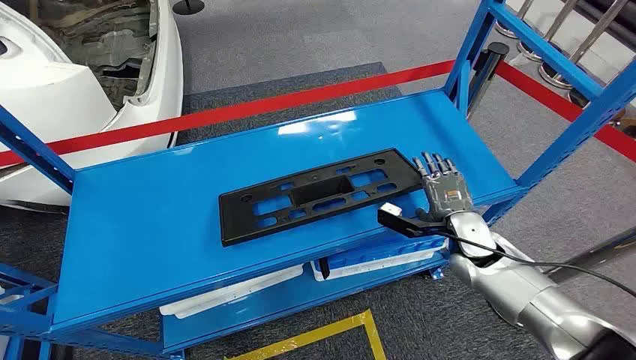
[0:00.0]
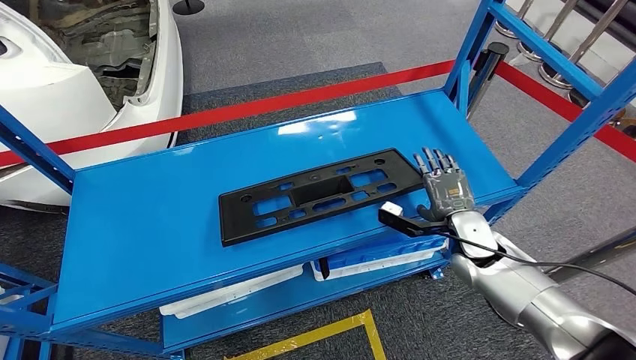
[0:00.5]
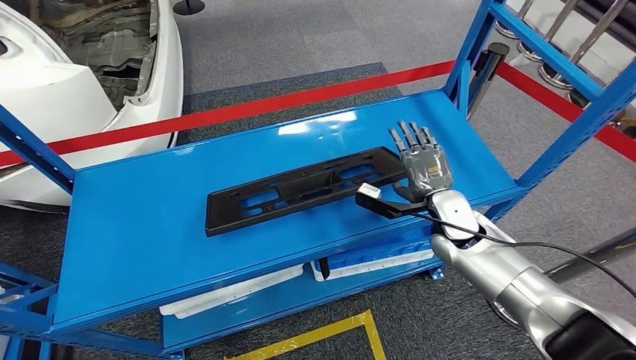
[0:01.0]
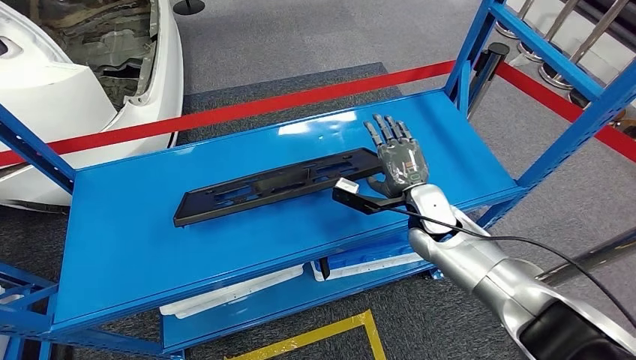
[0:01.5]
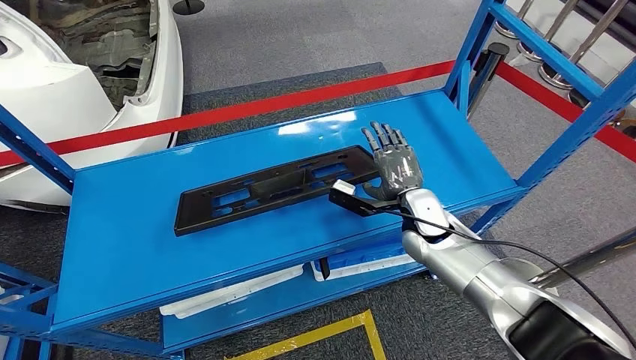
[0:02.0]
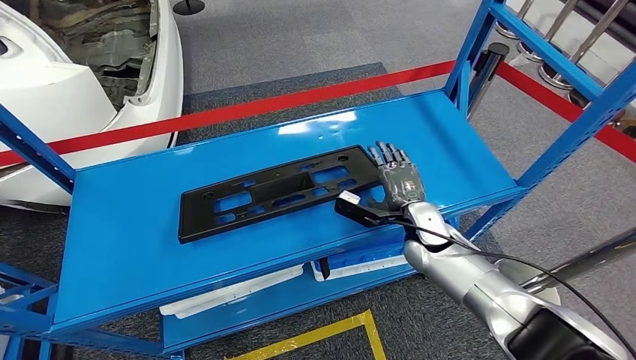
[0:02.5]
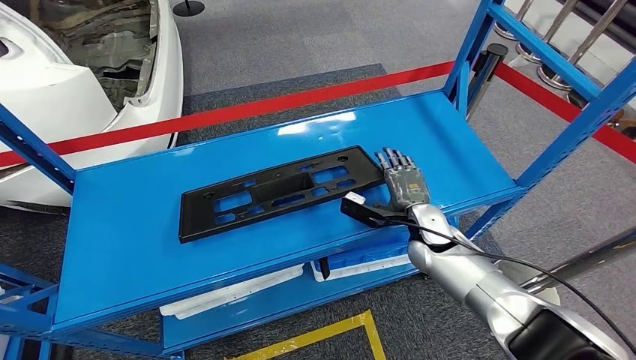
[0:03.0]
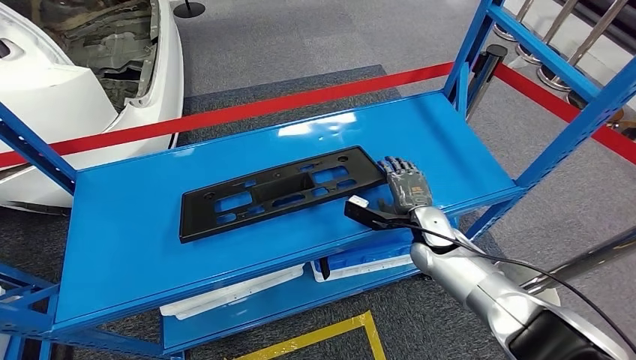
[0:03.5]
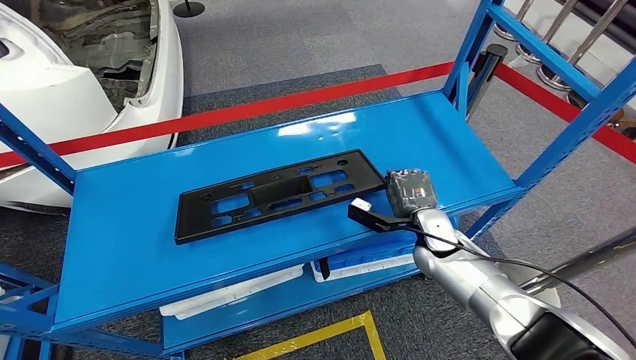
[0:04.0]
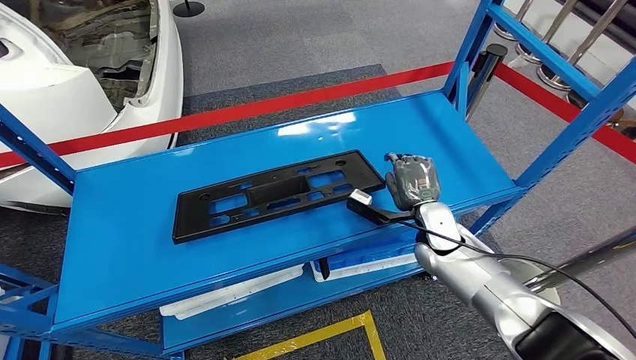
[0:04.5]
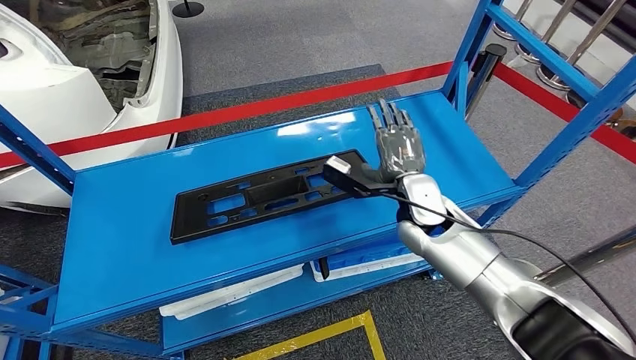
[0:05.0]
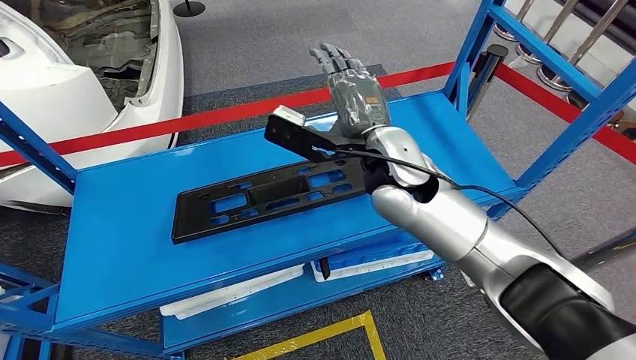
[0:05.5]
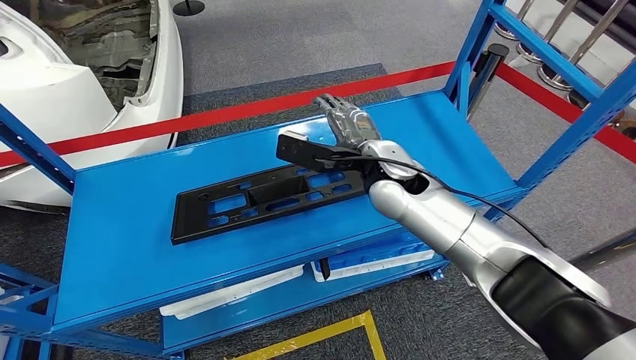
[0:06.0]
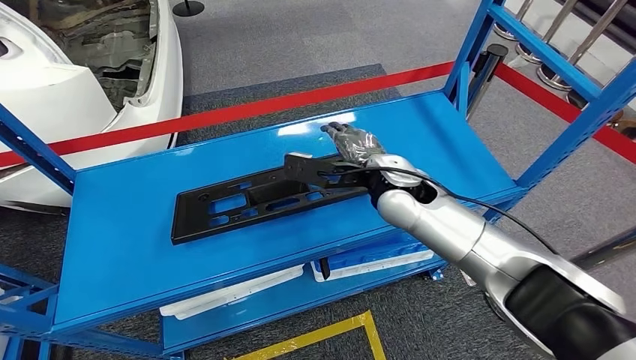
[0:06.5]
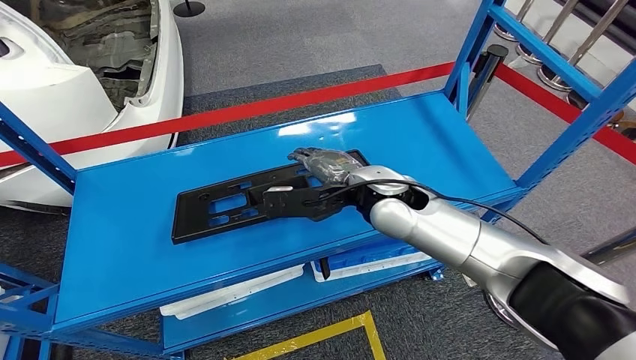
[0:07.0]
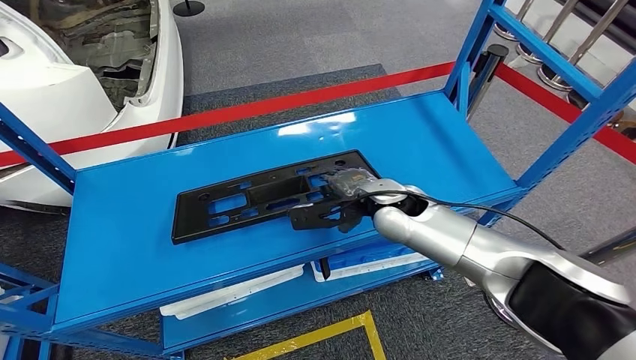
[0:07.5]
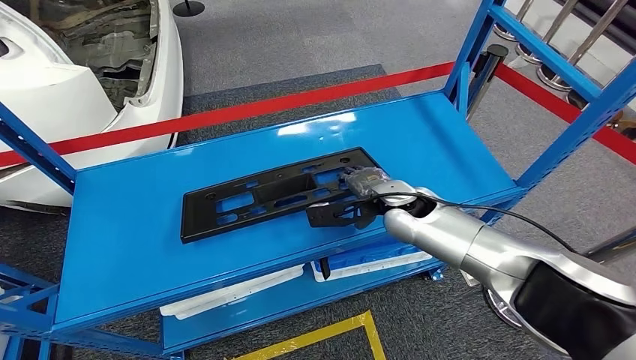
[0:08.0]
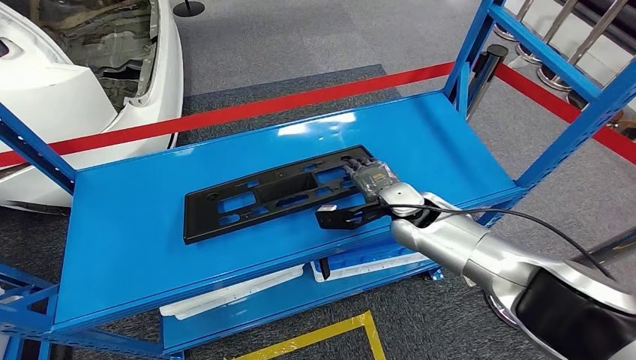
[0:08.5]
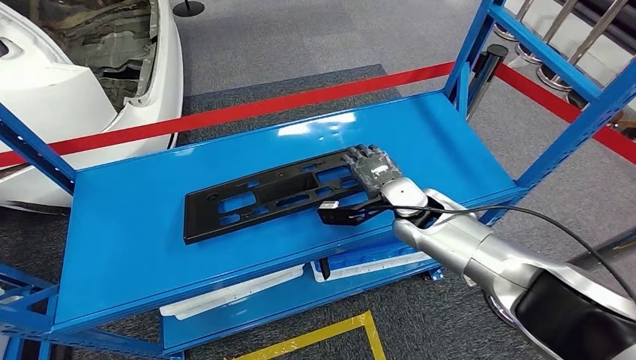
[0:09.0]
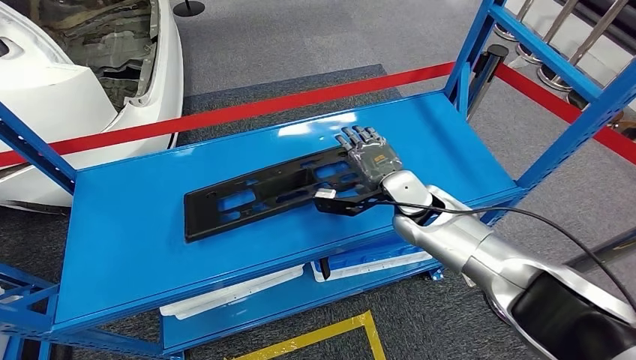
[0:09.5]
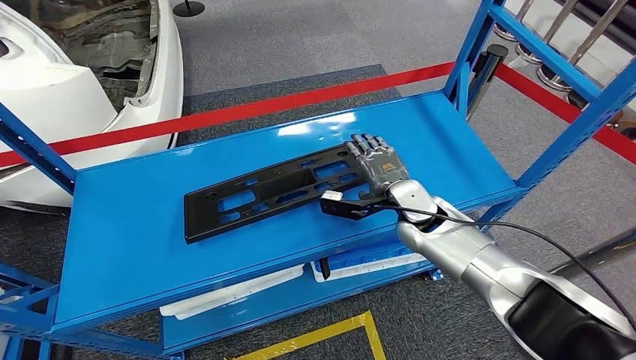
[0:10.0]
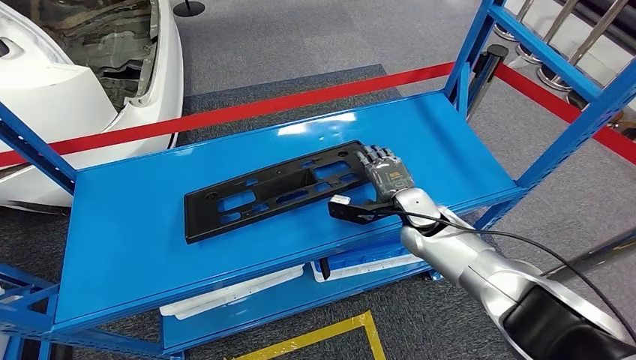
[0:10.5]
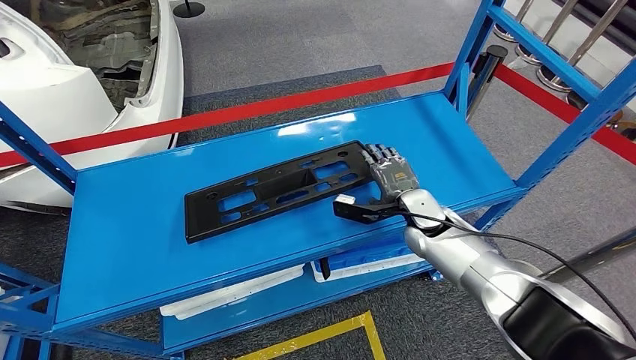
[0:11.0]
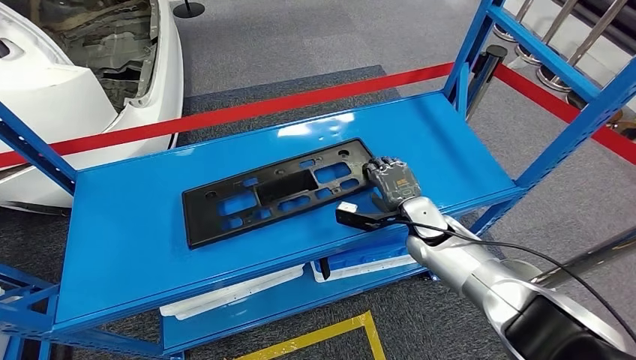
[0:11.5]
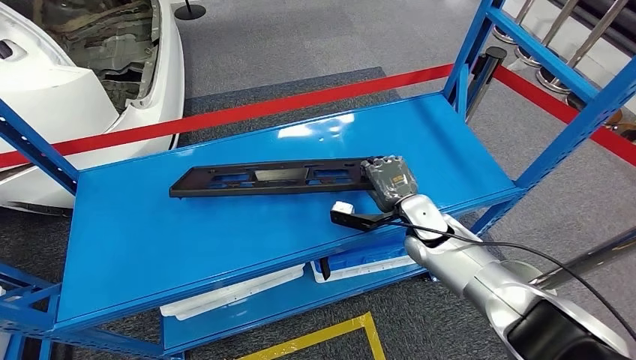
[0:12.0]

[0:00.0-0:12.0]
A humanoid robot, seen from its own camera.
0:02.0 to 0:04.0: The right hand heads downward, covering roughly 5 cm.
0:04.0 to 0:06.0: The right hand shifts about 20 cm upward and to the left.
0:06.0 to 0:08.0: The right hand moves downward, some 10 cm.
0:10.0 to 0:12.0: The hands stay close to where they were, moving slightly.

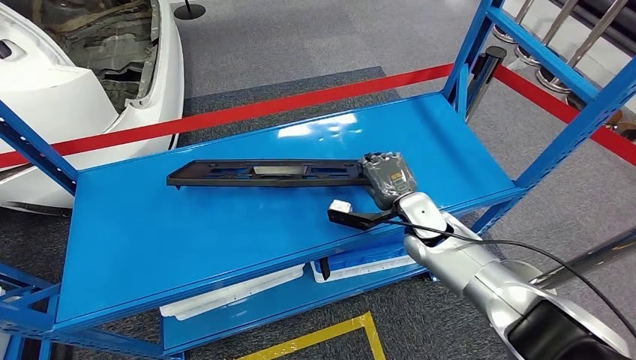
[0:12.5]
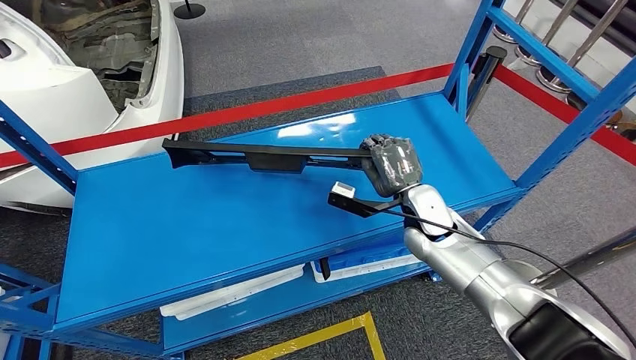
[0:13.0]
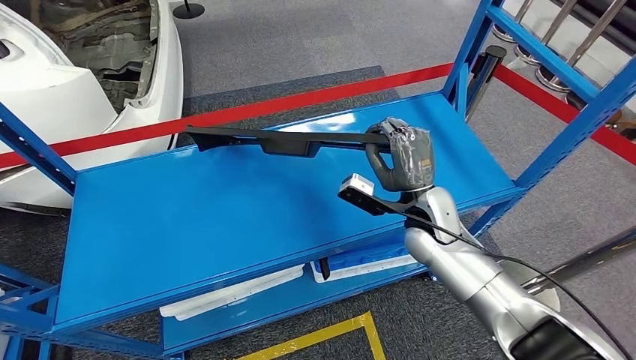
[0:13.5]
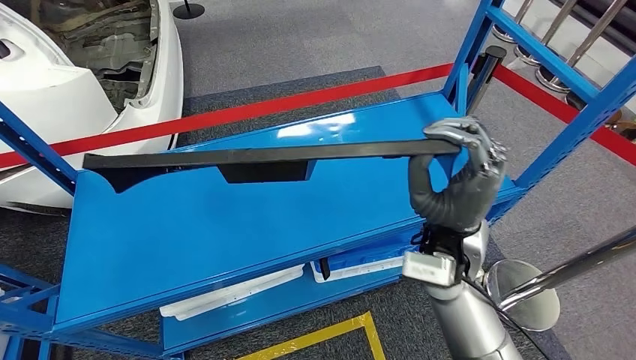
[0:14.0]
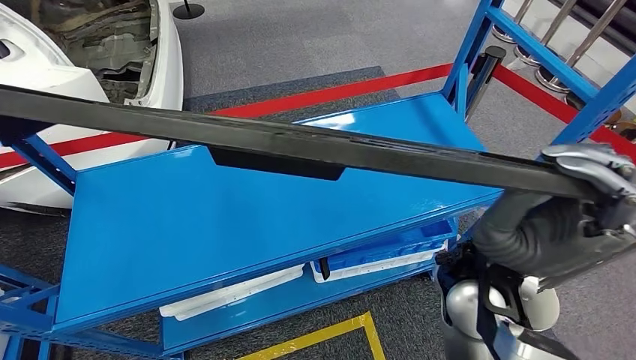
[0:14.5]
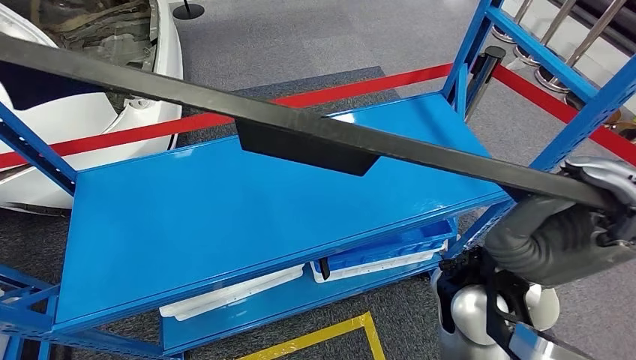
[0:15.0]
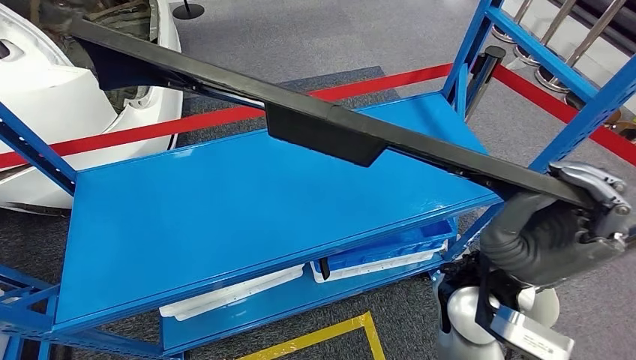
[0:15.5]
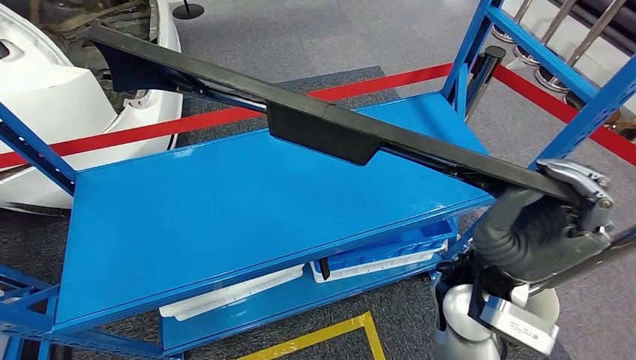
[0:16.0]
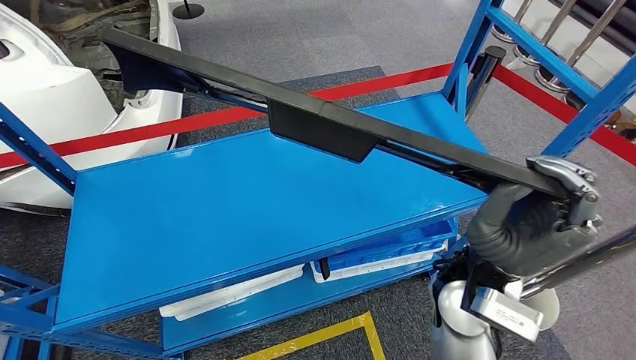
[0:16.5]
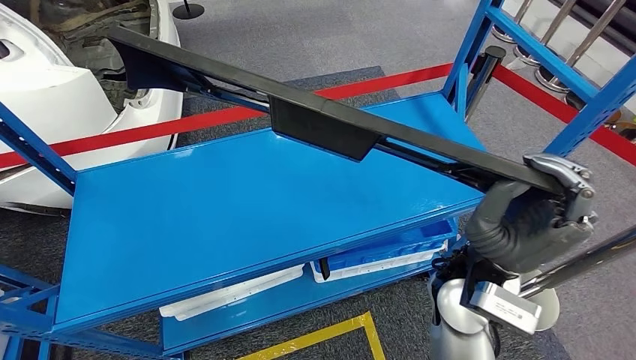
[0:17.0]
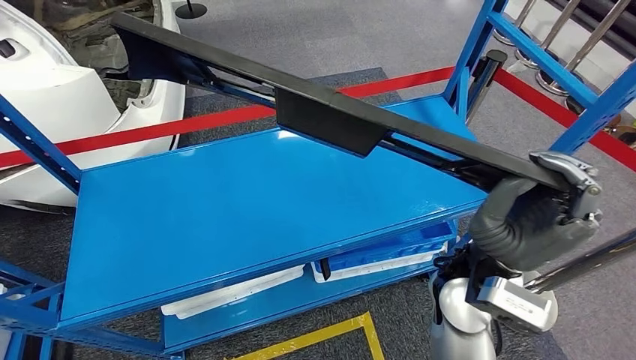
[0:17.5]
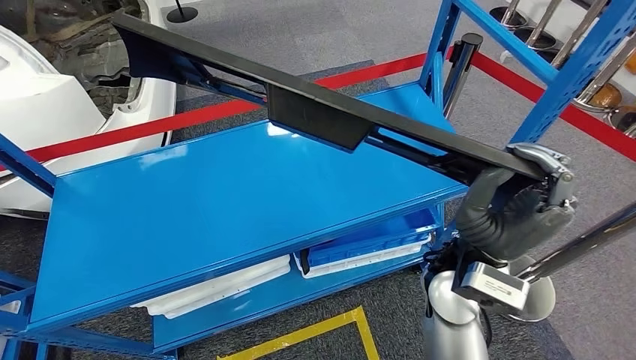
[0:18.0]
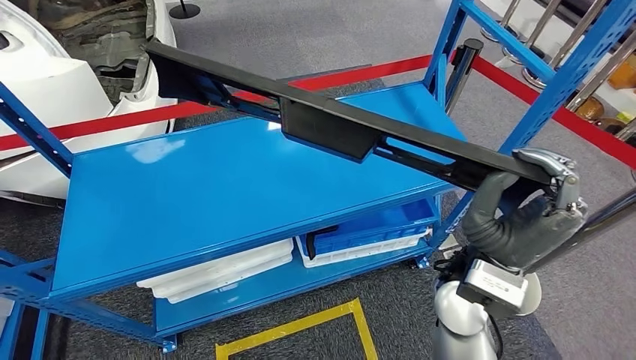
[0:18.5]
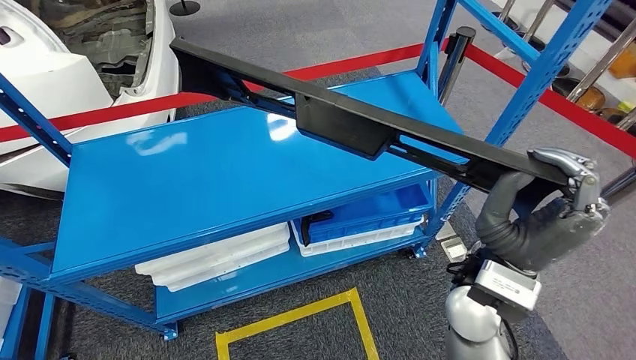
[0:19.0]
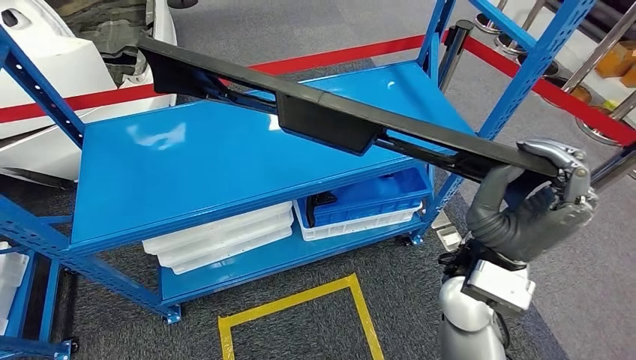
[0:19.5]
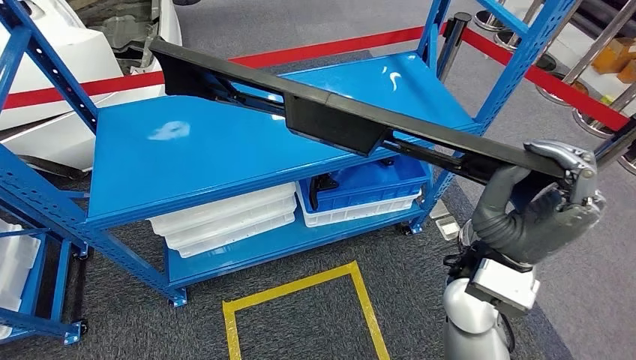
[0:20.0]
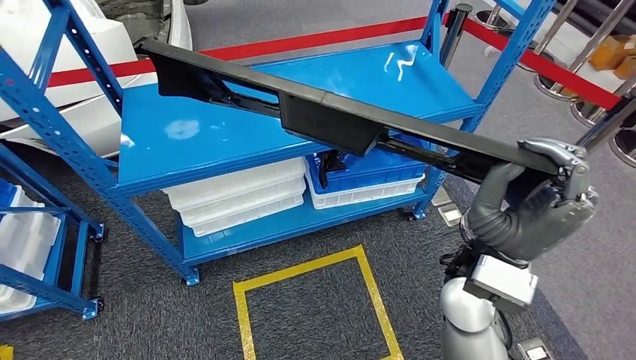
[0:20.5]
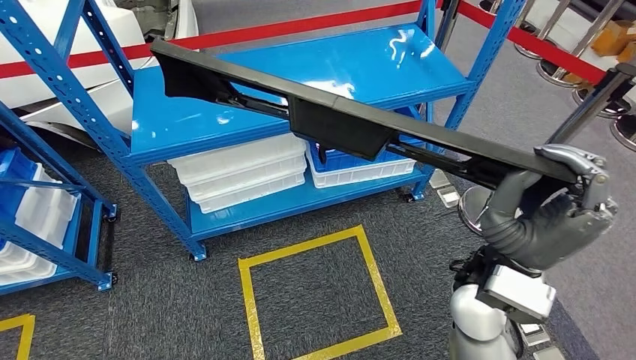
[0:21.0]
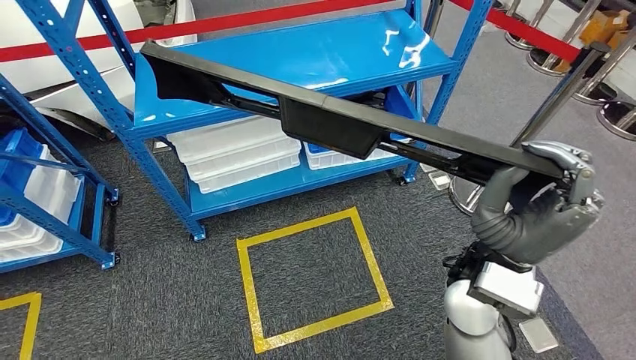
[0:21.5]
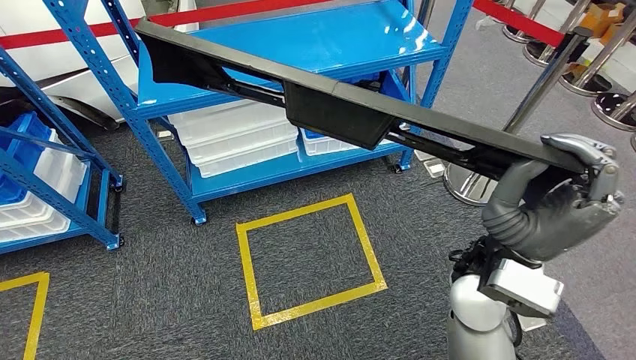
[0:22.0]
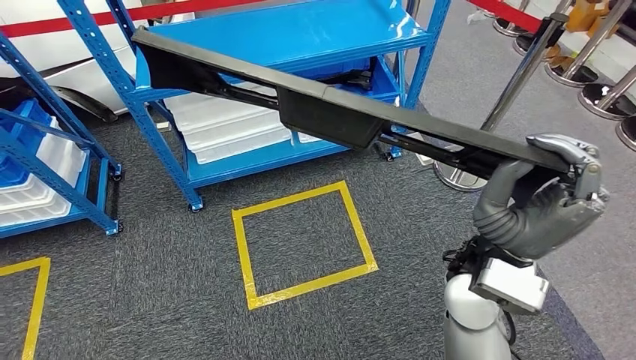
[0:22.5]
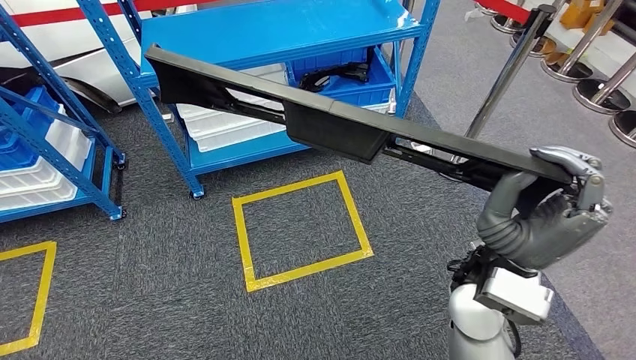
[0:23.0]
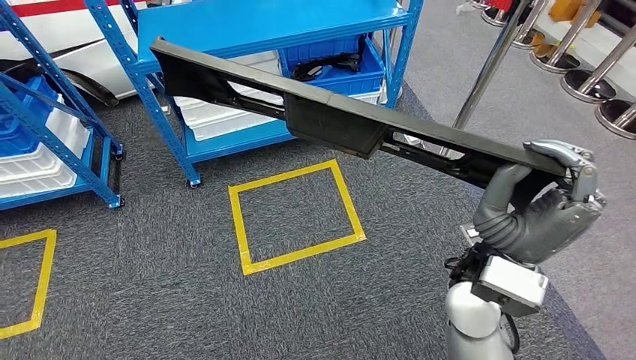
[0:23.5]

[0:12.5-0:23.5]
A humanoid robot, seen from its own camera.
Step, 0:12.5 to 0:18.5: Pick up the large material from the shelf.
0:14.5 to 0:16.0: There are only small adjustments of the hands.
